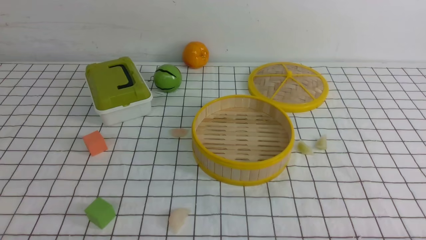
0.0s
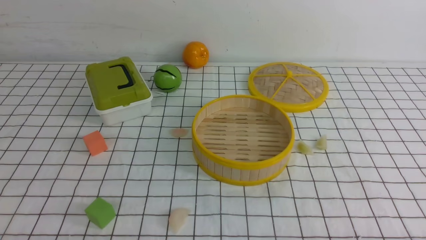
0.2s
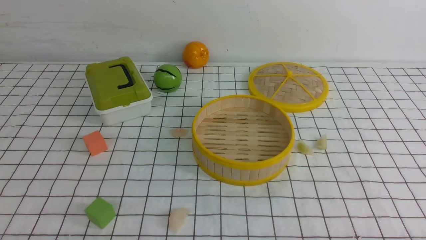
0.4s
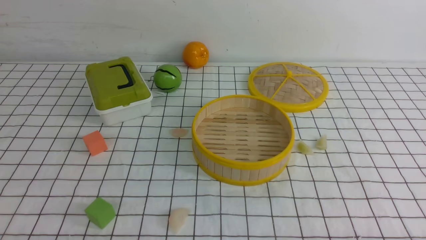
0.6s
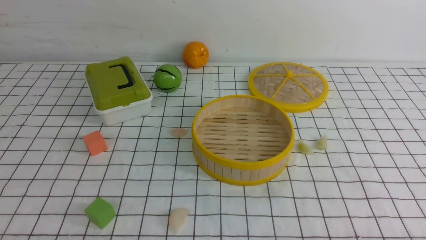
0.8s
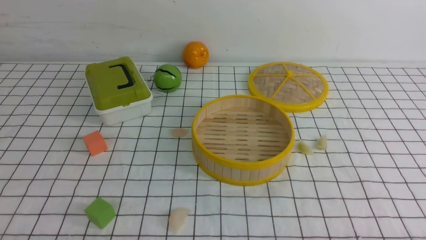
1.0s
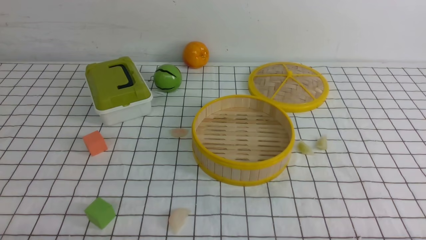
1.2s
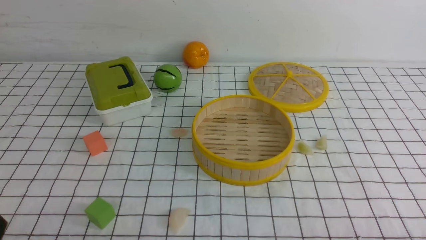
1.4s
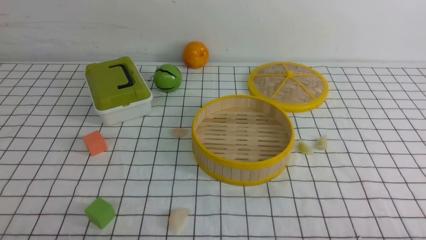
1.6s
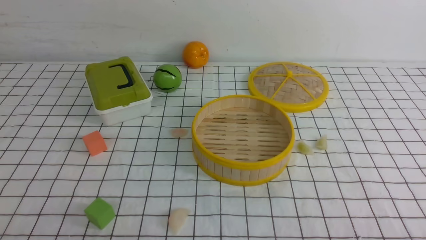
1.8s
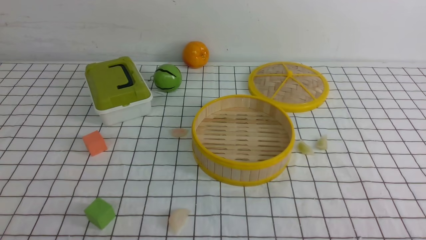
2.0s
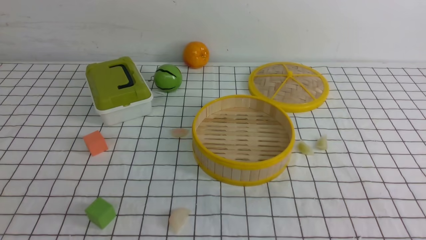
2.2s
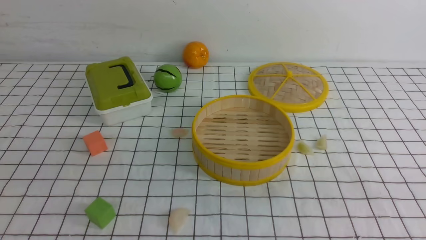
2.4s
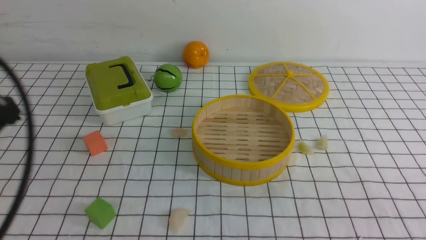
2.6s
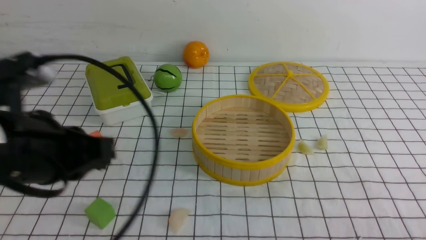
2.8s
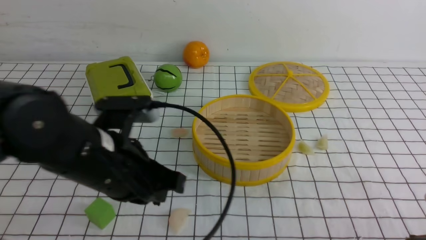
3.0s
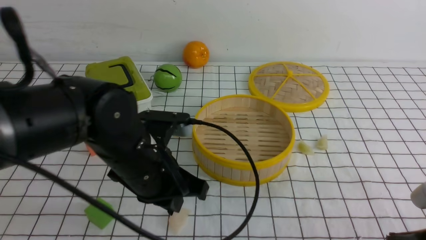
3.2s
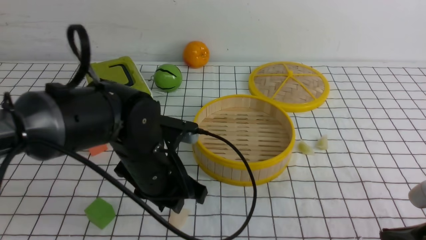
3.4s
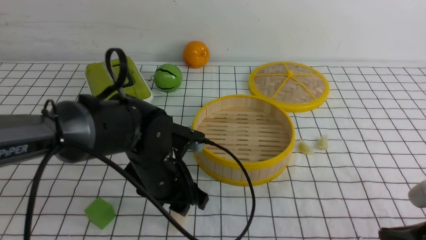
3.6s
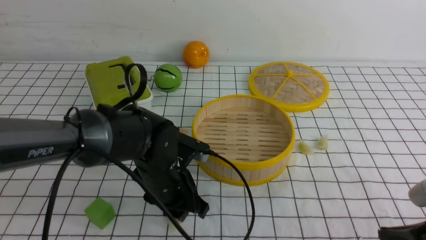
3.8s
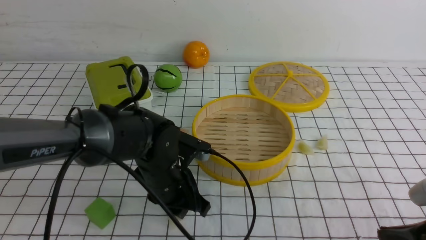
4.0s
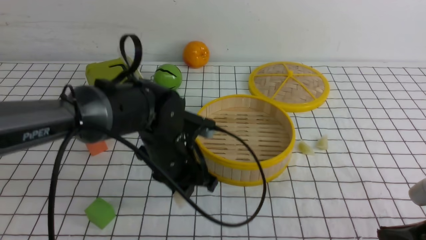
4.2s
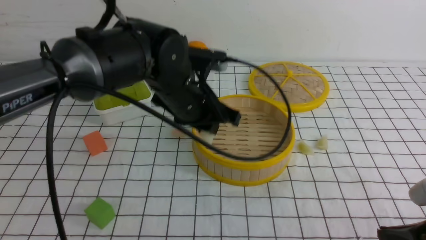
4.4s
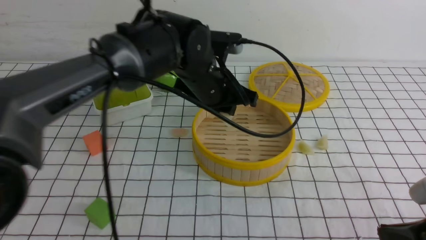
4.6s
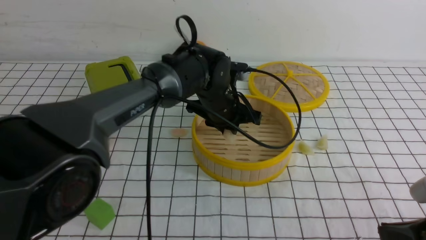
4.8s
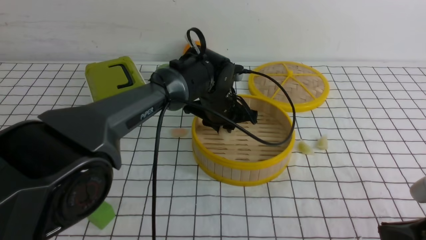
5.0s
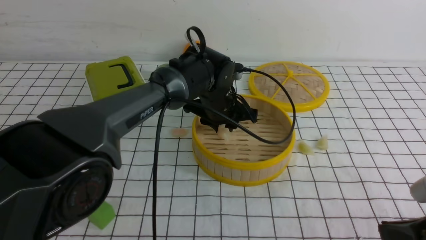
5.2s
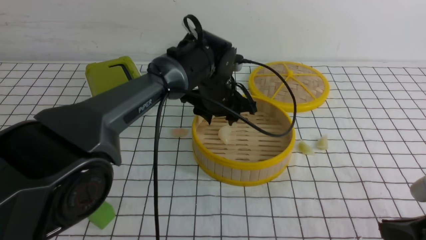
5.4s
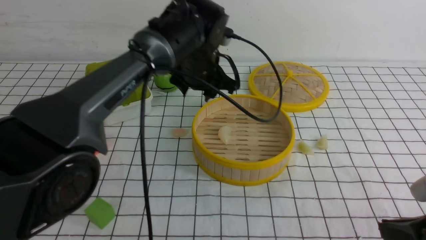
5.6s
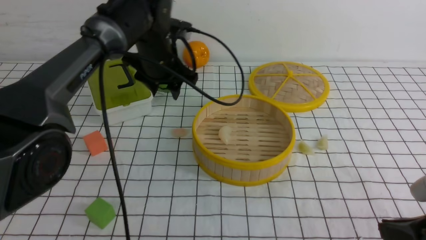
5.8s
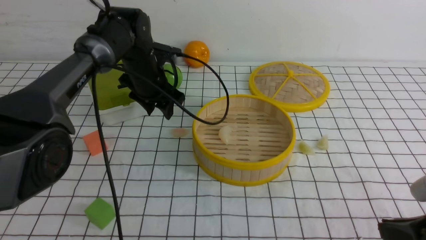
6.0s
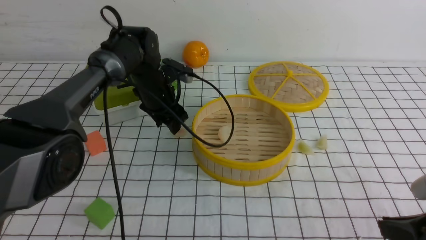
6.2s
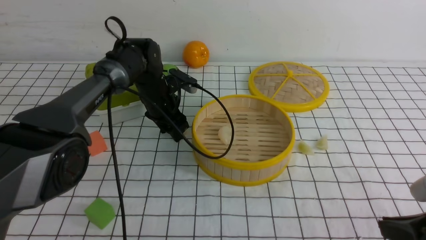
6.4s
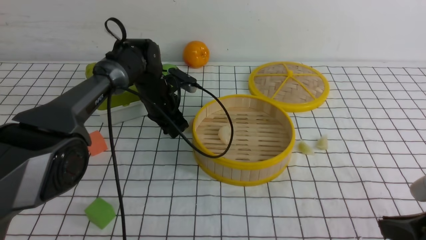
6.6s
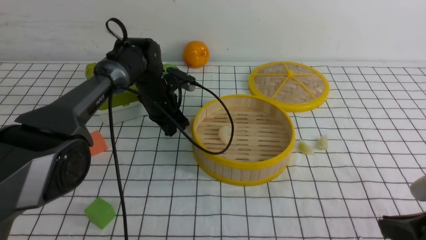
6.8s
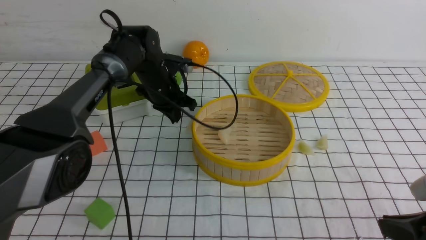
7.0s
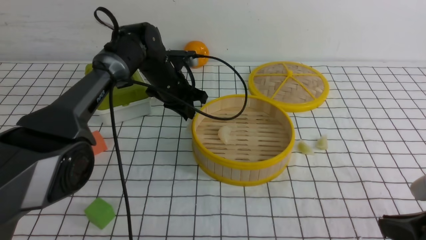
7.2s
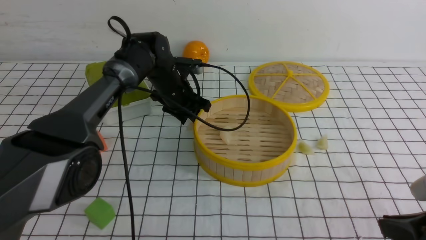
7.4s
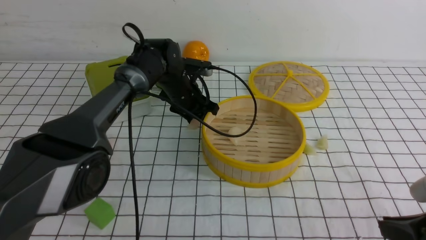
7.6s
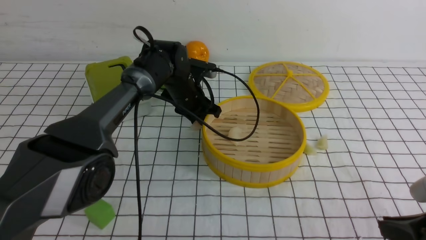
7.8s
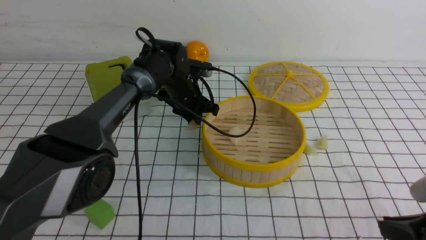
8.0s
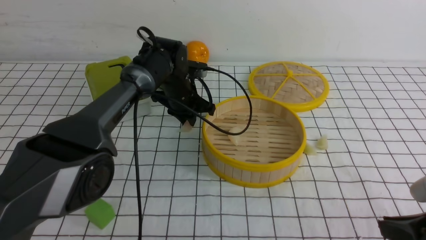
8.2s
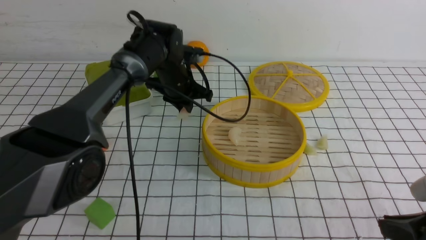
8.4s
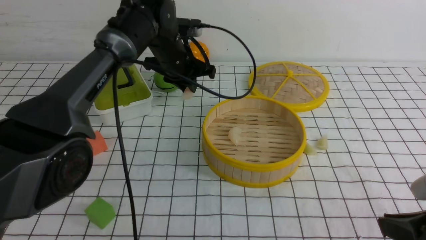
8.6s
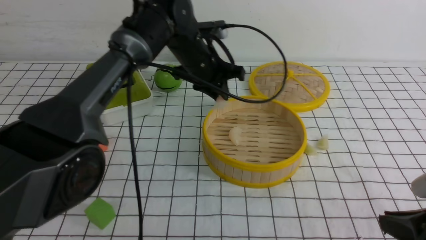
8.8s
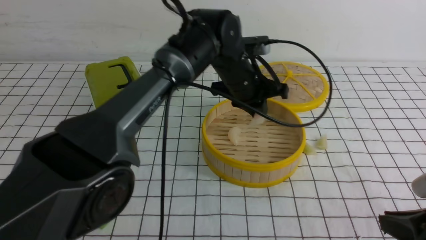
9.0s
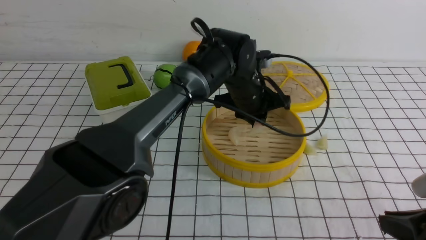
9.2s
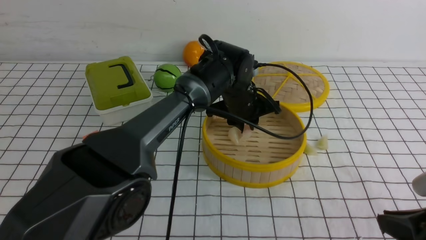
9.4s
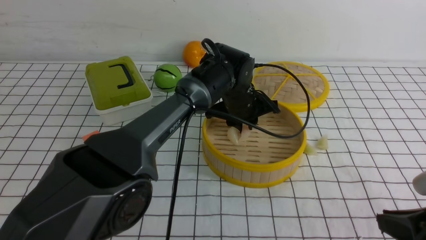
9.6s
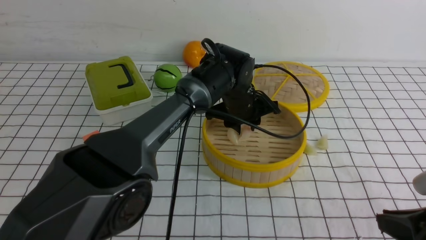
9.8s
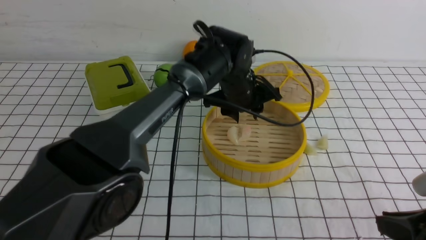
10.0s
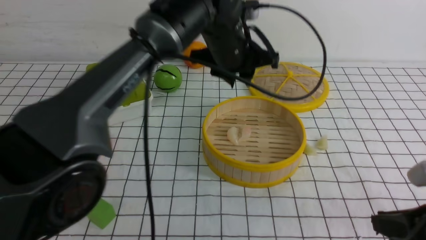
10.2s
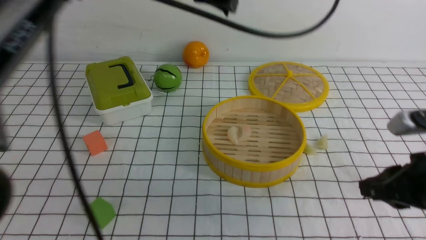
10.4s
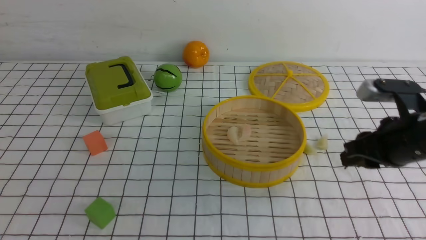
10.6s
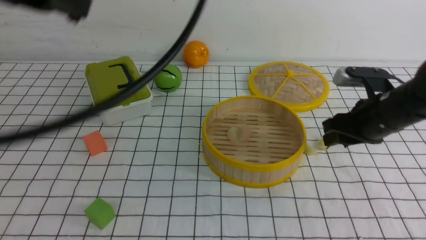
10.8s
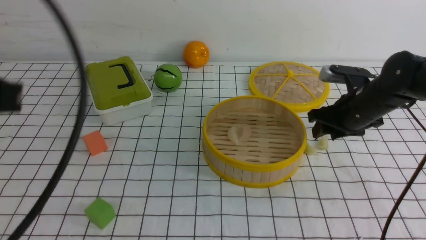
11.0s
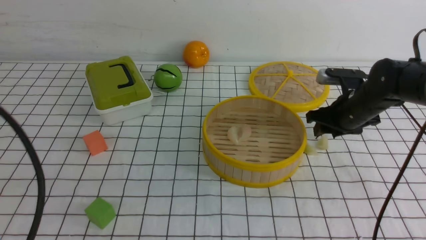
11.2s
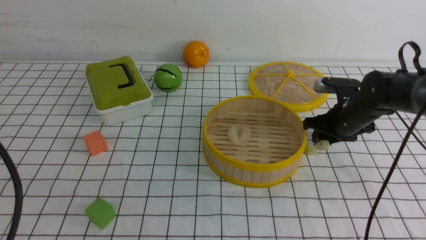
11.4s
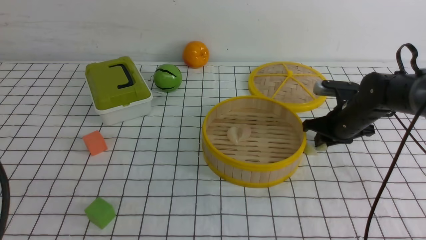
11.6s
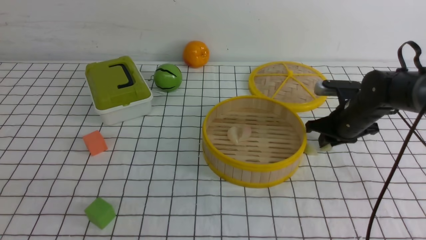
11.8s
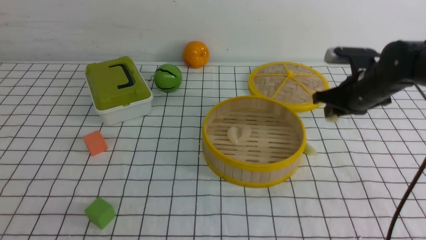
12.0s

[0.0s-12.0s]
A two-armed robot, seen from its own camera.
Task of the whole recording: put the dumplings into the steamer on the table with the white tablecloth.
Step, 0.0s to 4.4s: use the left arm to grab a dumpling.
Step, 4.6s to 5.4s: use the left arm to put the dumpling into the steamer.
Step, 5.6s to 8.6s: use the left arm to grab a dumpling.
Step, 8.8s to 10.0s: use the left arm to put the dumpling into the steamer.
1.6s to 3.0s: The right gripper heads forward, covering approximately 5 cm, and closes up; the left gripper goes some 20 cm forward and to the right, and closes its fingers.
3.0s to 4.4s: The left gripper travels forward and to the right by approximately 15 cm, and opens.
4.4s to 6.0s: The left gripper goes approximately 15 cm forward and to the left, and opens.
6.0s to 7.6s: The left gripper shifts by approximately 5 cm, and closes and opens again.
7.6s to 9.0s: The left gripper moves to the right, upward and backward, roughly 15 cm, and closes up.
9.0s to 10.4s: The right gripper is displaced forward by about 5 cm. The left gripper shifts approximately 25 cm upward and backward, and opens, then closes once more.
10.4s to 12.0s: The right gripper goes approximately 20 cm forward, and opens and closes again. Meanwhile the left gripper heads backward, to the left and downward, covering some 40 cm.

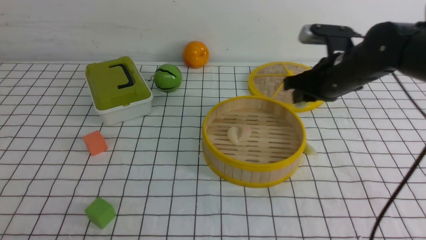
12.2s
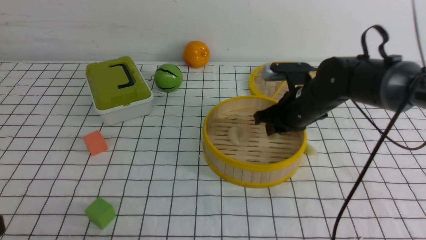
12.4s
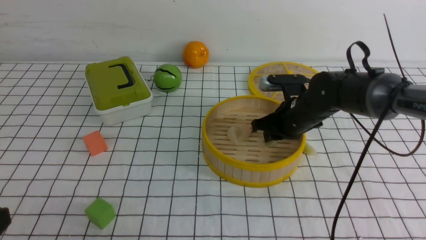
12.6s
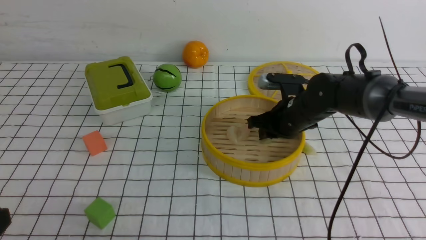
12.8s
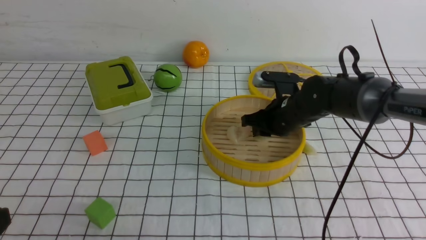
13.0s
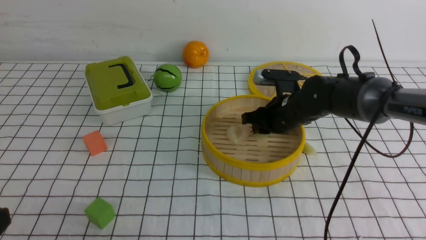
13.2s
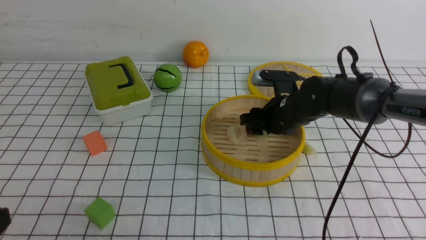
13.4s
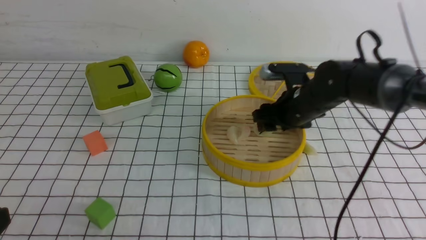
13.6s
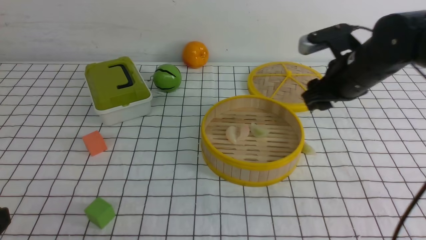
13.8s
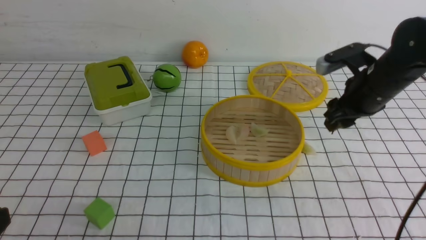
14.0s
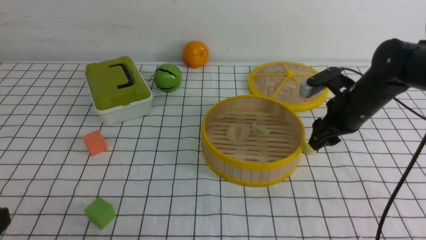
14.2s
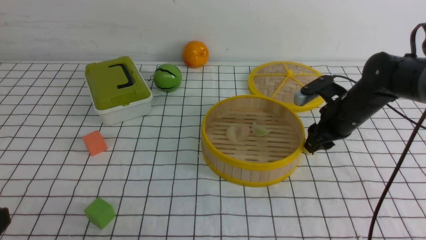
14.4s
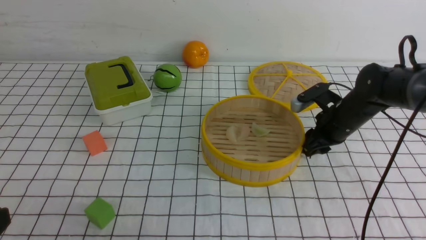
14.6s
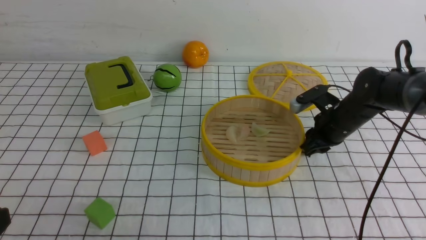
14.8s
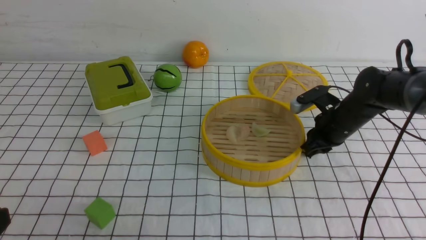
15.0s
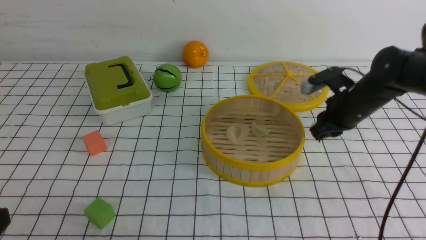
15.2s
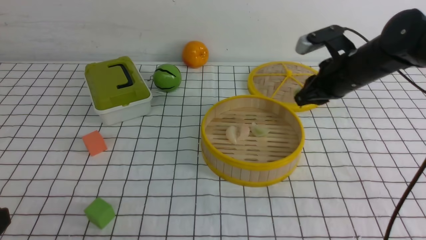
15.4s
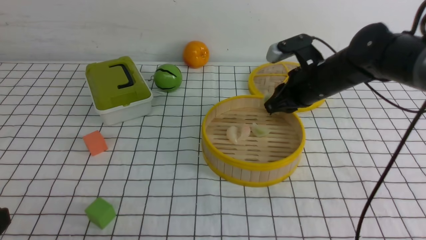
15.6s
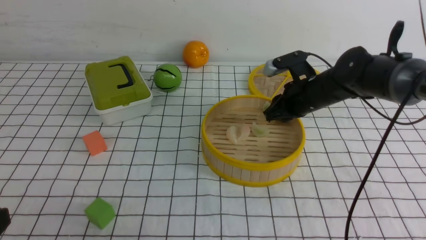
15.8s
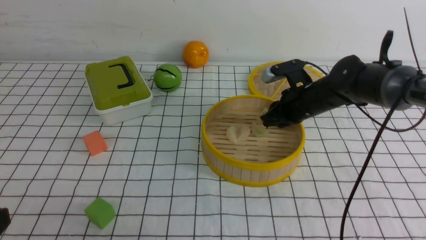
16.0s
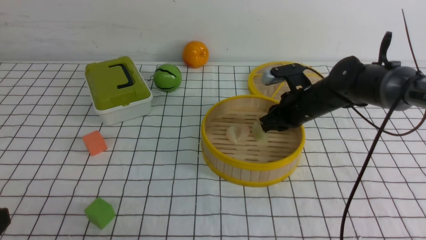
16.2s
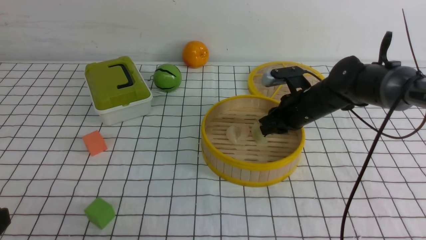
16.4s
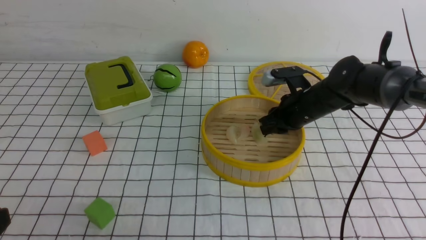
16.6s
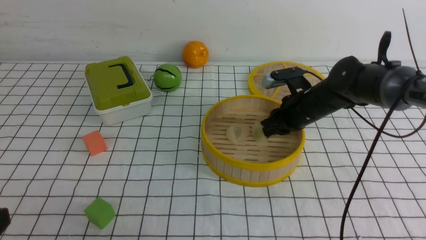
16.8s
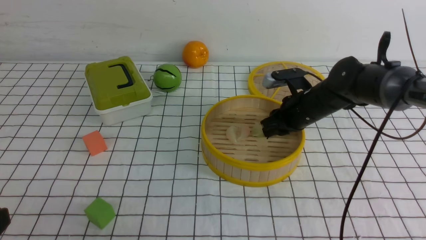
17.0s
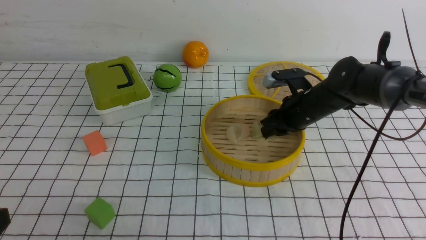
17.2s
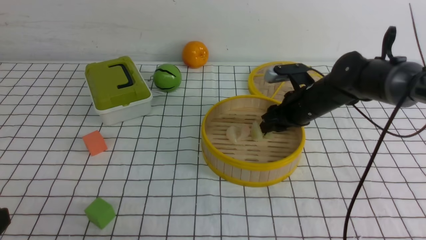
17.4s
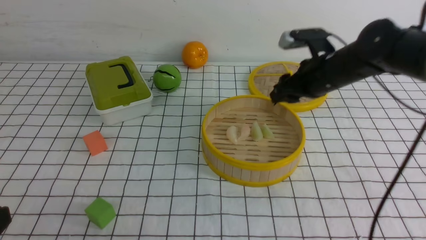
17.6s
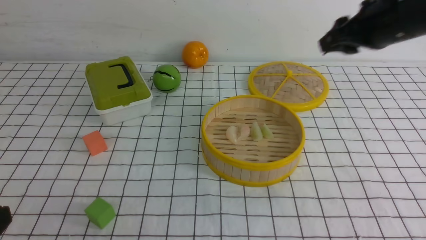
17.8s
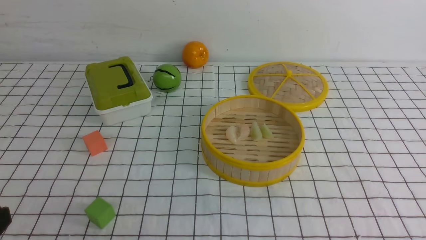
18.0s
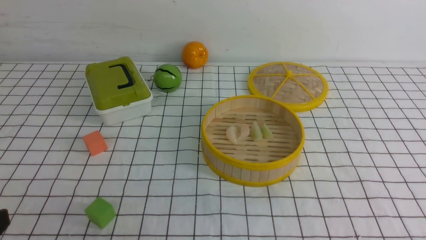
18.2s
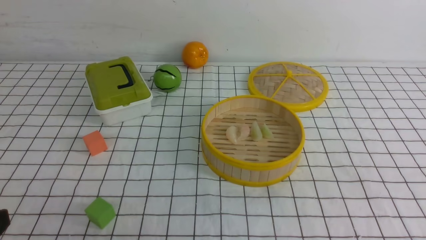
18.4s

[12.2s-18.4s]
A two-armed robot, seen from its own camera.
Task of the whole recording: put the dumplings into the steamer on the table with the white tablecloth.
Step, 12.2s to 13.6s: use the right arm to put the dumpling into the steamer.
Step, 13.8s to 15.4s: use the right arm to grab a dumpling.
Step, 15.6s to 17.4s: use the right arm to put the dumpling into the steamer.
12.2s to 13.8s: The right gripper goes downward and returns, approximately 5 cm each way, and opens its fingers.
13.8s to 15.4s: The right gripper goes downward and returns, some 10 cm each way, and closes.
15.4s to 16.8s: The right gripper goes approximately 5 cm downward.
16.8s to 18.4s: The right gripper heads backward and upward, covering some 40 cm, and closes its fingers.
